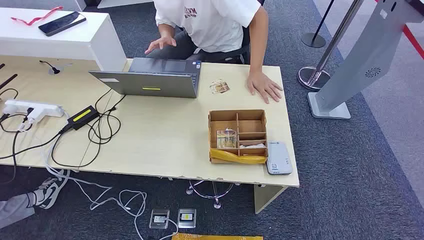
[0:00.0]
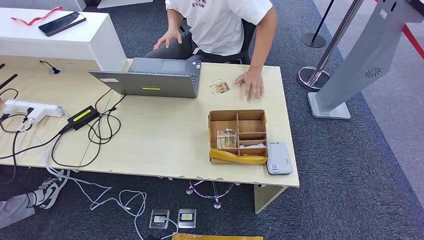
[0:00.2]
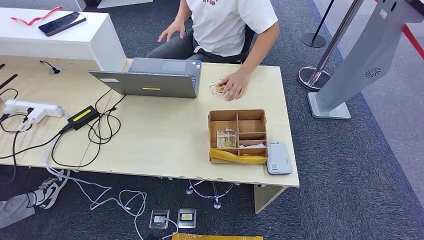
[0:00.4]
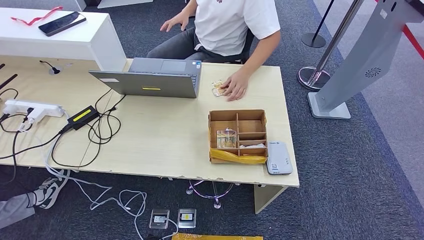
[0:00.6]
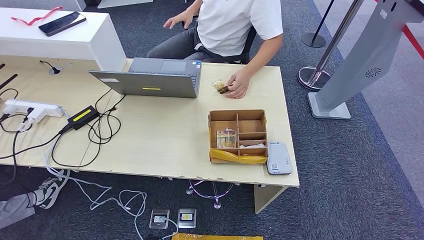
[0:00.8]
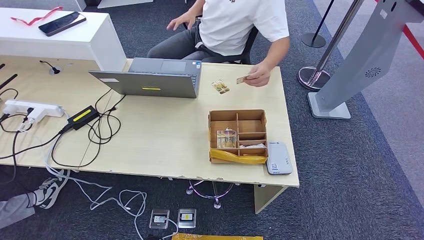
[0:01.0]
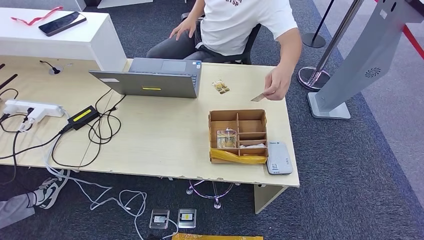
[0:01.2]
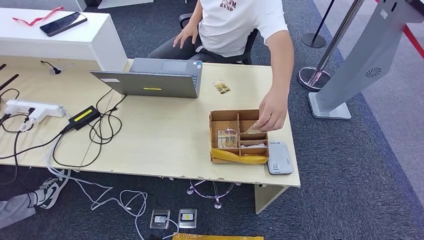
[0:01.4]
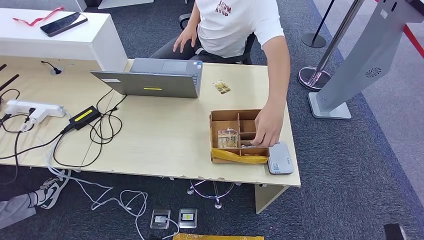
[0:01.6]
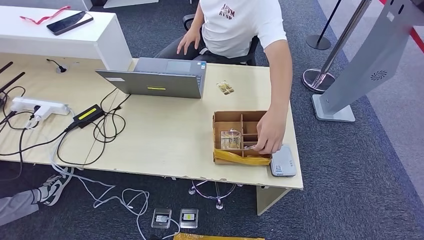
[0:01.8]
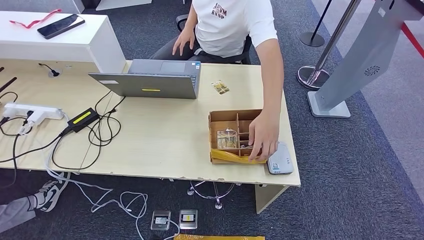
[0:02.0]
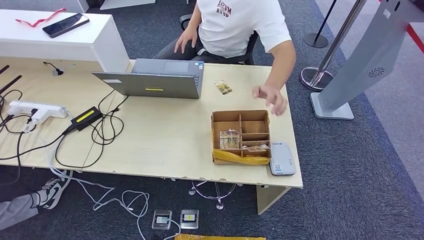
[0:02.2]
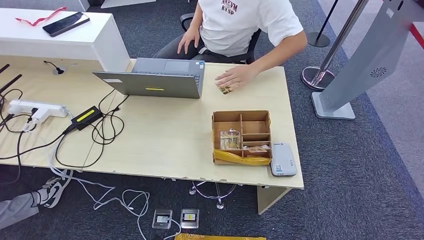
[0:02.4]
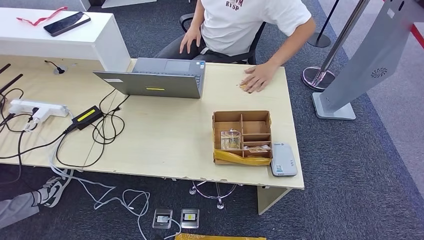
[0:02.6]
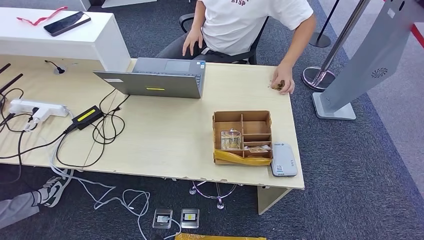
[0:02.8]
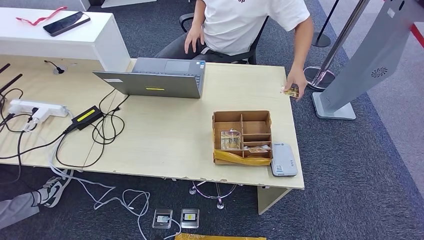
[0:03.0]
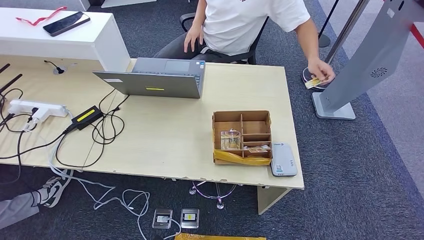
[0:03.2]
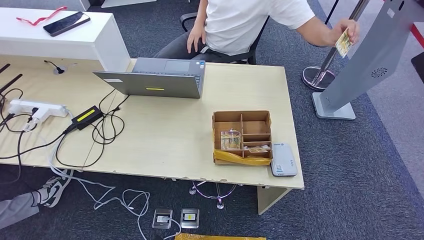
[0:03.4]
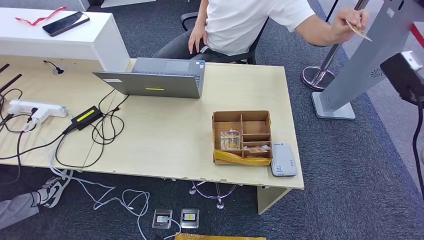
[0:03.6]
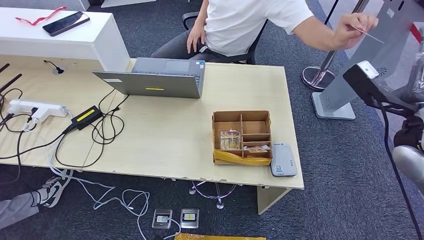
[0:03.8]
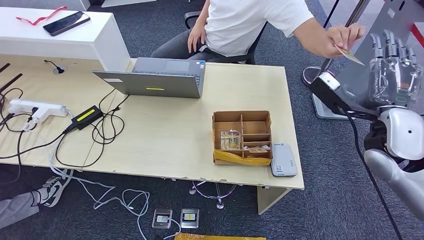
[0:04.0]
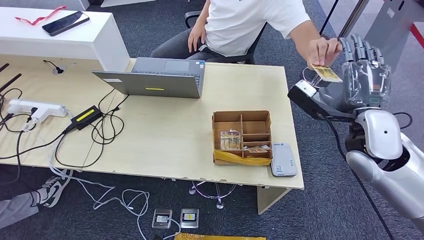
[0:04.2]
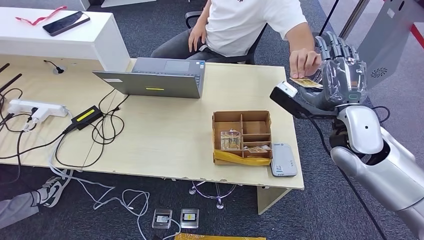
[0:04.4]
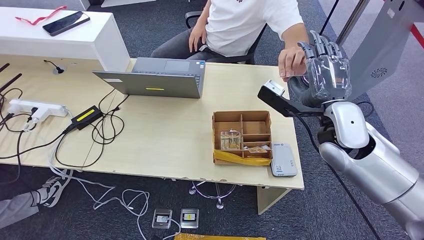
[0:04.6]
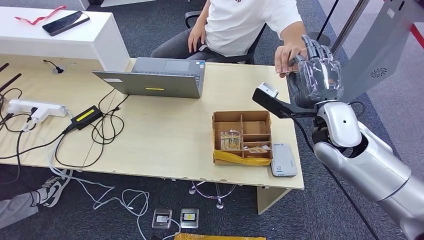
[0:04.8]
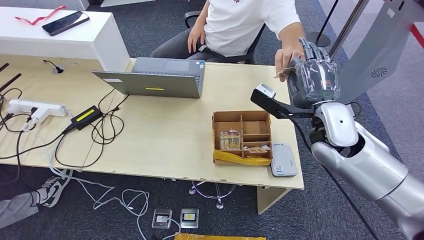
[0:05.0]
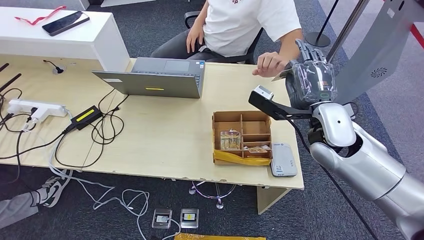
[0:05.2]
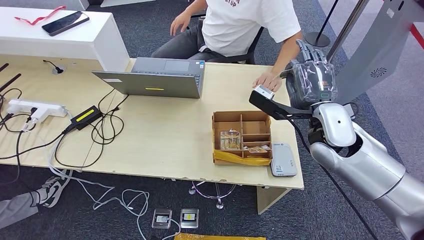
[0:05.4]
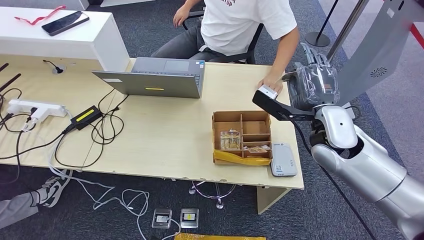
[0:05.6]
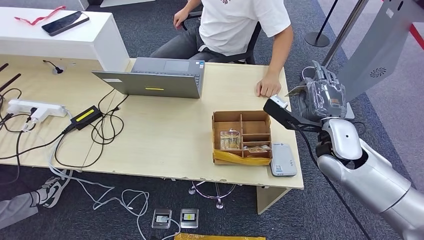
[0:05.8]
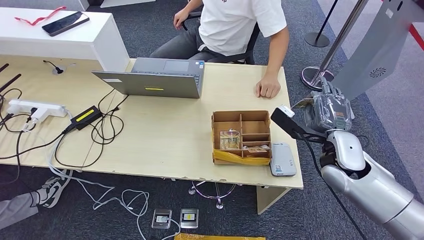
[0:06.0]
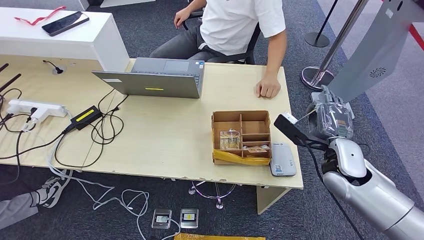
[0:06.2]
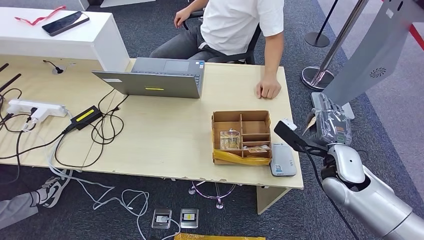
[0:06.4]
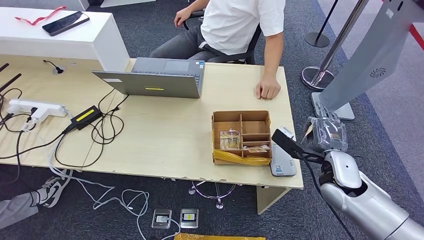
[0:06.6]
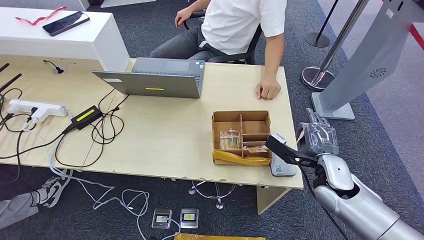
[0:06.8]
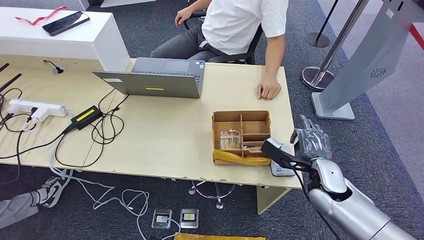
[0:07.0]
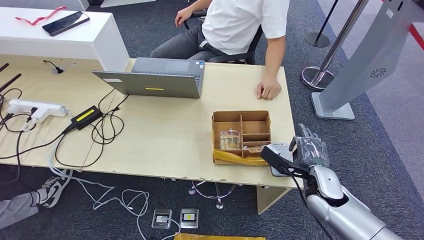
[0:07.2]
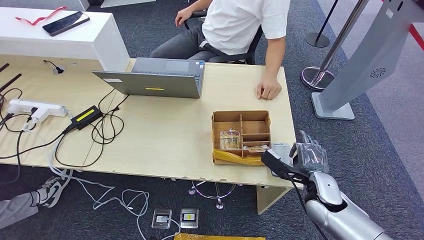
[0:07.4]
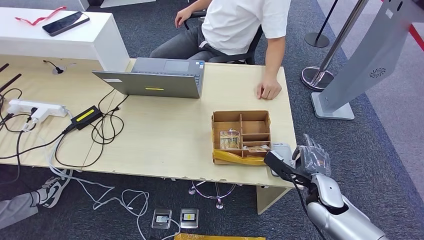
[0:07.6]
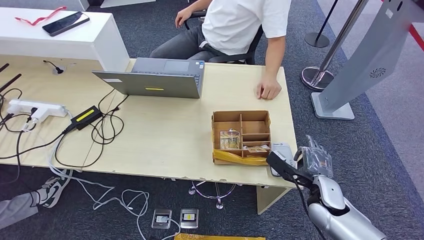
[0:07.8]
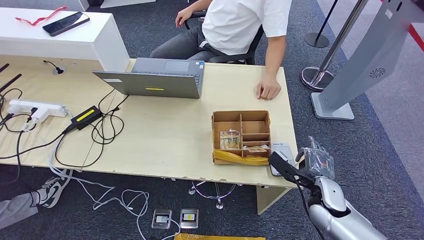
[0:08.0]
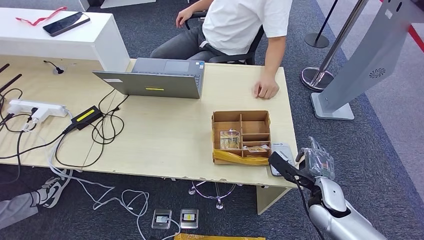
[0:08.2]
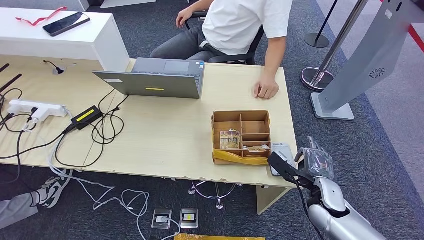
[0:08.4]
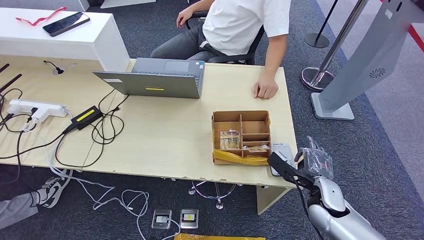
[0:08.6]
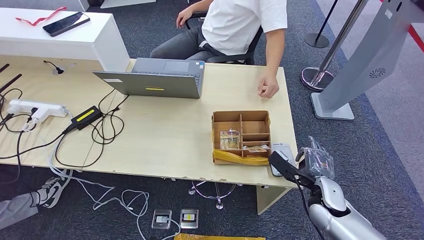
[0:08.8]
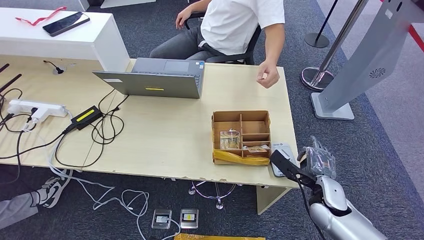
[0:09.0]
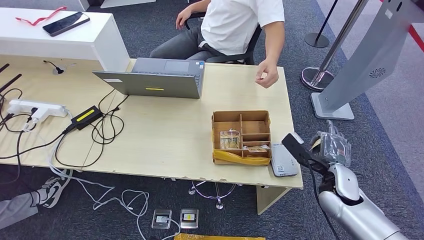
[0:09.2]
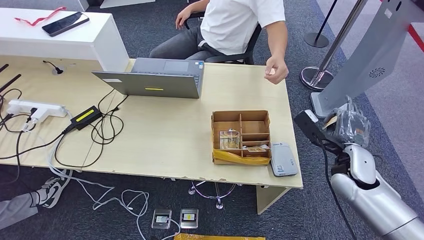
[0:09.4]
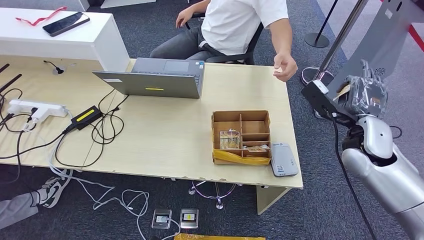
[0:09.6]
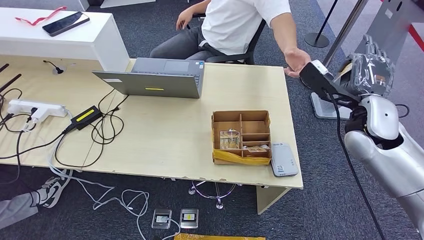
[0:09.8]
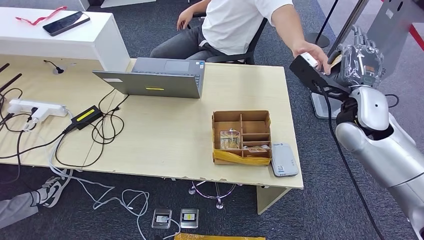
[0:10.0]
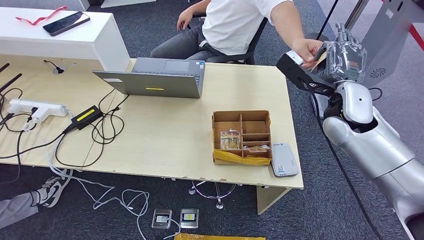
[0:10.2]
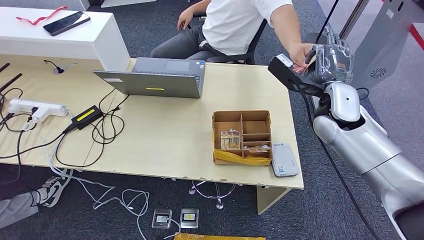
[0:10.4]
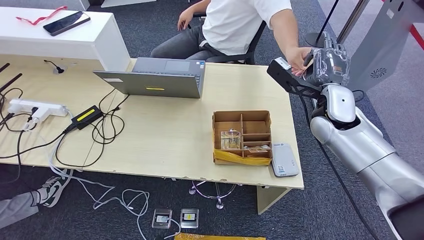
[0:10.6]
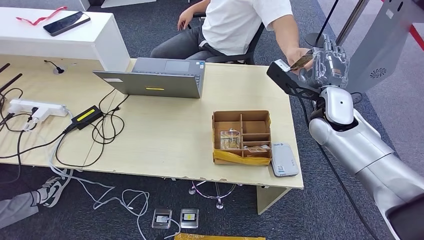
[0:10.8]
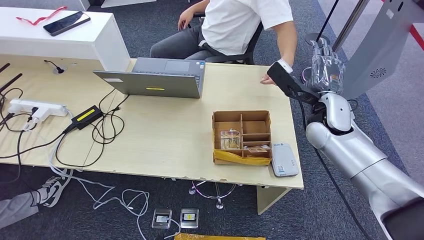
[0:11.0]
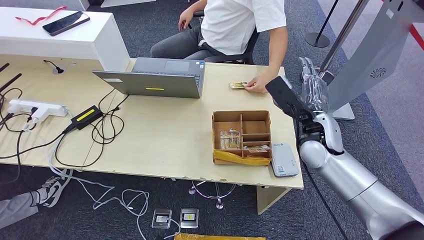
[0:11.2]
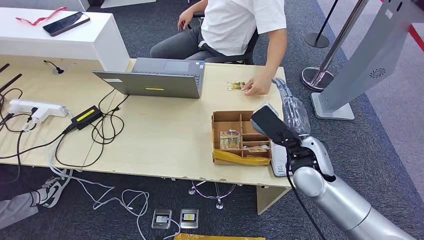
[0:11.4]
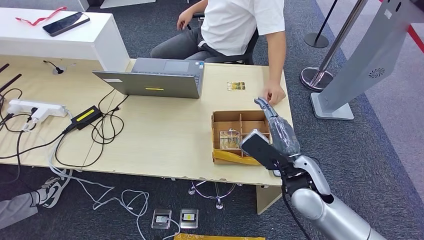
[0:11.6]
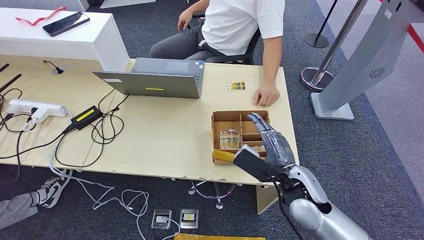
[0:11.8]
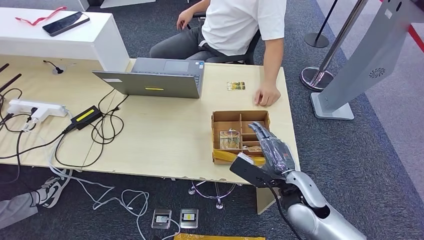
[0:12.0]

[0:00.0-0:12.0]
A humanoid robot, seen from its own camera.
Step, 0:00.0 to 0:07.0: Take the ID card from the person's hand.
Step, 0:07.2 to 0:09.8: Place the ID card on the card reader.
0:03.0 to 0:04.4: The right hand moves to the left, approximately 20 cm.
0:04.4 to 0:06.0: The right hand shifts approximately 10 cm downward.
0:06.0 to 0:07.6: The right hand moves downward, some 15 cm.
0:07.6 to 0:09.0: Neither hand changes place.
0:09.0 to 0:10.4: The right hand goes about 25 cm upward and forward.

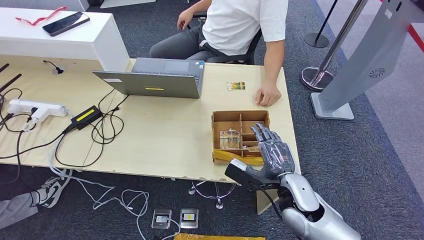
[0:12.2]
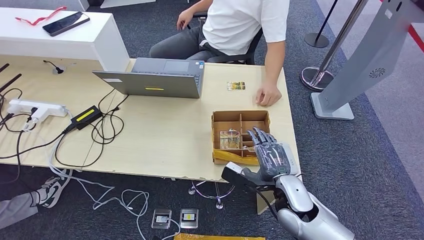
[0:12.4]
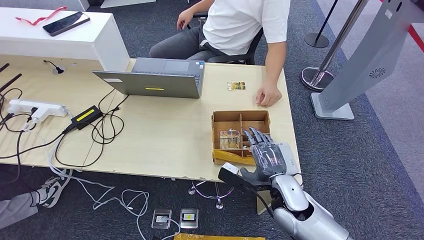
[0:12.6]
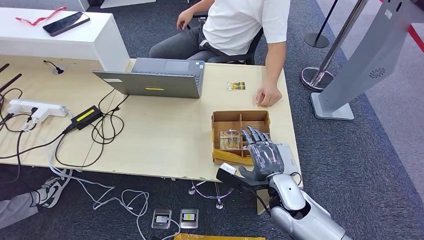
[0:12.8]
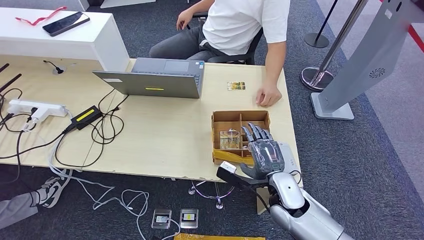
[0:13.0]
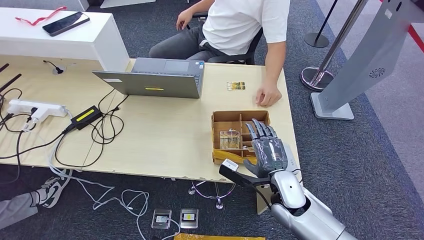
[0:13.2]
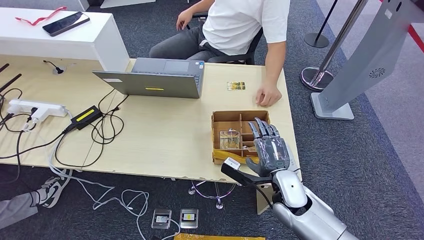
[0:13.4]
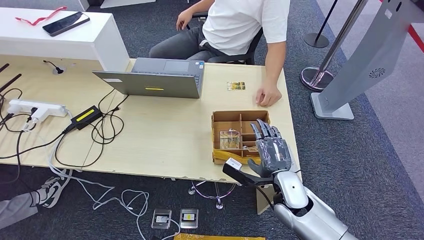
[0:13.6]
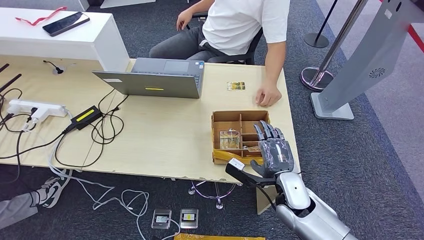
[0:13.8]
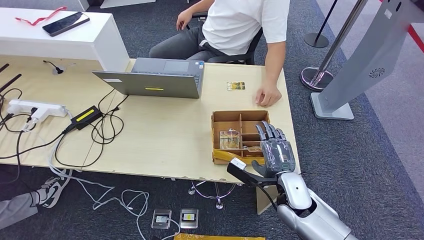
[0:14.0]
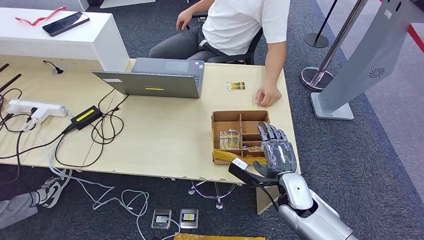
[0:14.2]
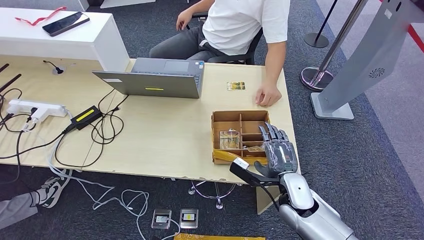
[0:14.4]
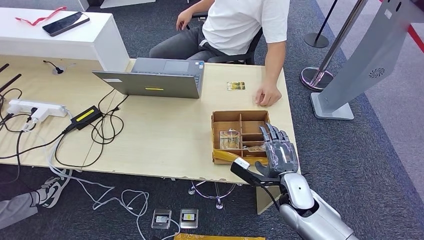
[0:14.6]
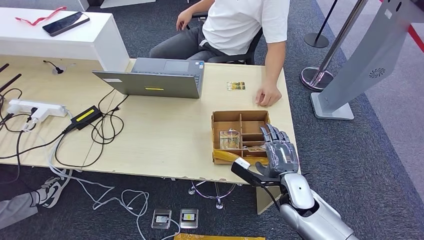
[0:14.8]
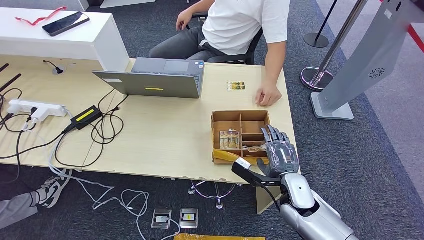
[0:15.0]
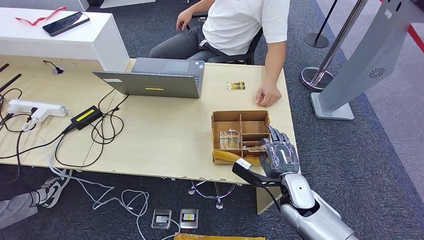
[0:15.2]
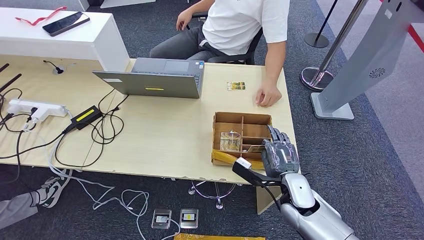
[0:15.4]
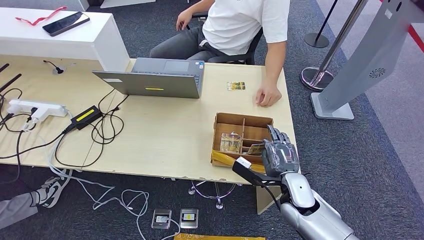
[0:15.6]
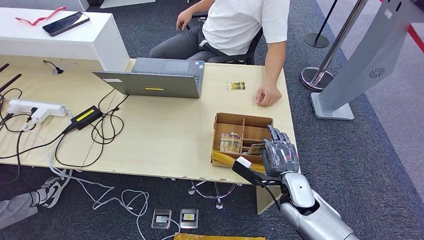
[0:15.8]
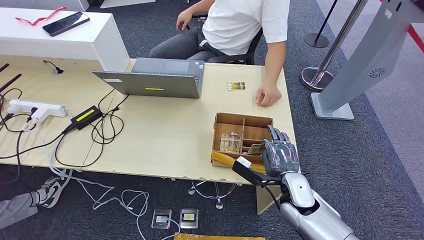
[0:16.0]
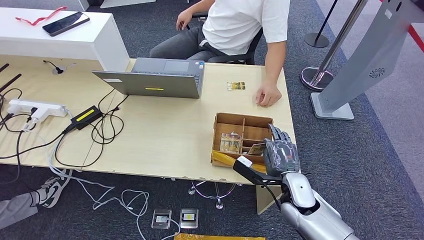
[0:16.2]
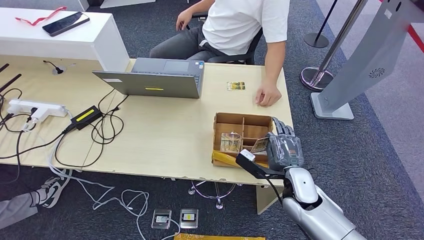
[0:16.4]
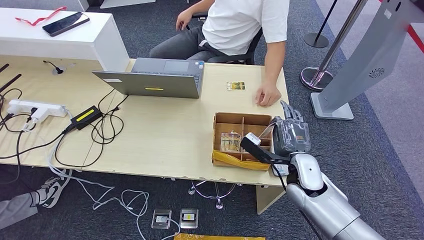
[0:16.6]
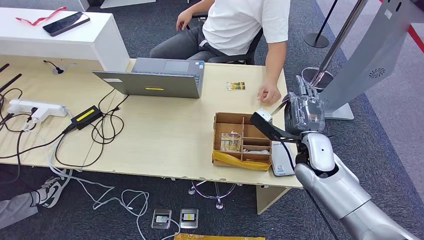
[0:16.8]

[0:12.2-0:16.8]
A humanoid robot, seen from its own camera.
Step, 0:12.8 to 0:15.0: Pick up the room key from the key card box.
0:12.2 to 0:15.2: The hands stay close to where they were, moving slightly.
0:15.2 to 0:16.8: The right hand travels upward and forward by some 10 cm.
